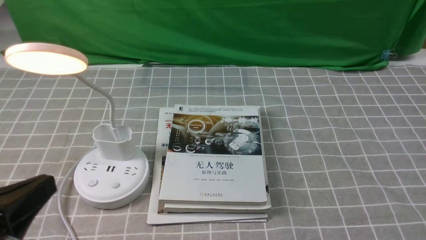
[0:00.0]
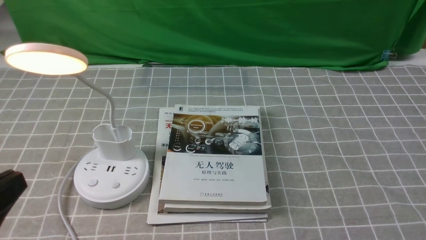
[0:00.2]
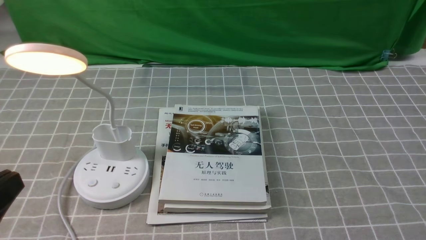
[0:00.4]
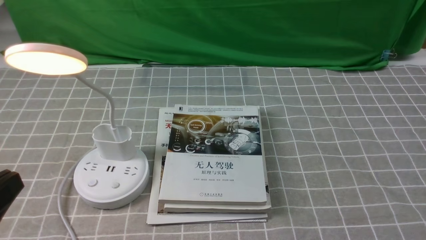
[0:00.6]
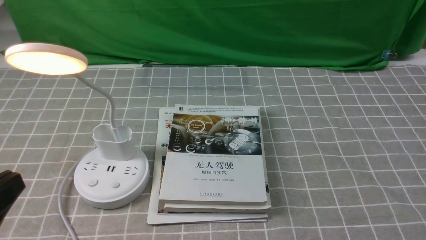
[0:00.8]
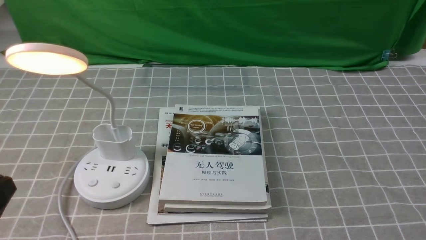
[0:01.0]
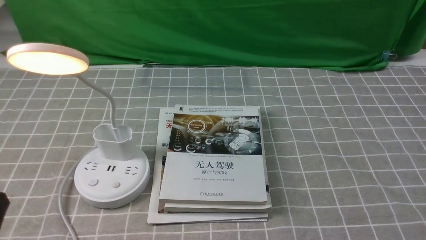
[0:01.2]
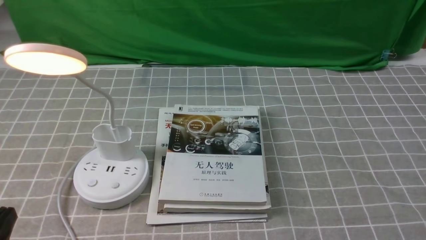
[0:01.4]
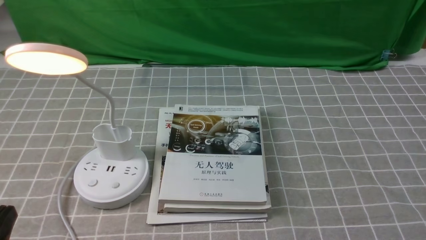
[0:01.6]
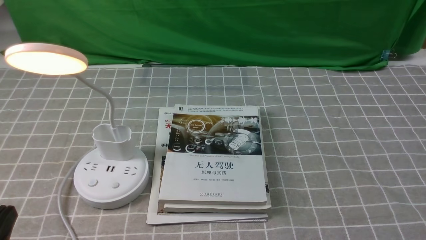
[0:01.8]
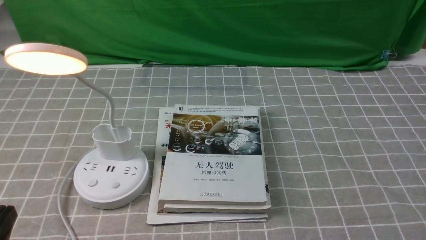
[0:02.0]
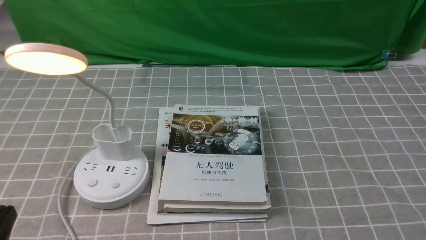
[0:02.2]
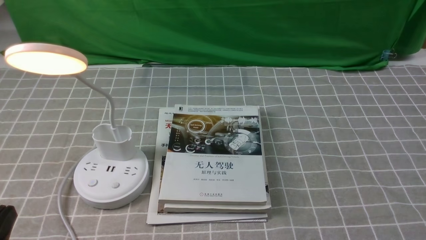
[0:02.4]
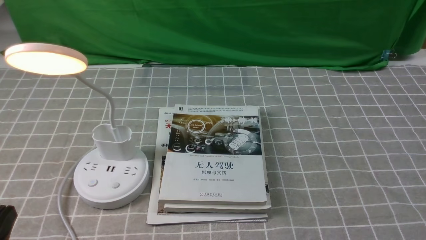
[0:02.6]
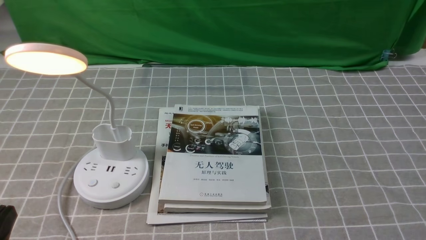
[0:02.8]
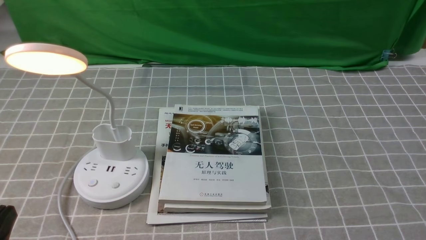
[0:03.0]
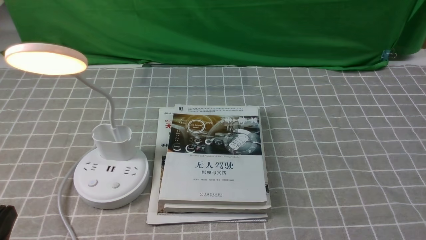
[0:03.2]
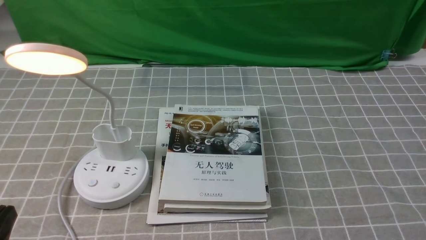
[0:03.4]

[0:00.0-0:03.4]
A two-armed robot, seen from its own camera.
0:00.0 to 0:01.6: The left gripper heads downward, covering approximately 5 cm.
0:01.6 to 0:03.4: The two grippers keep their place.
